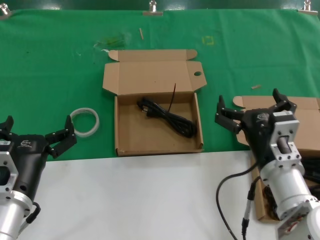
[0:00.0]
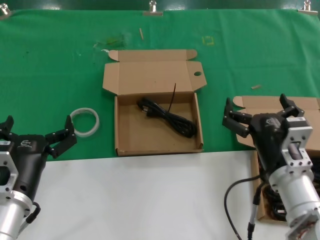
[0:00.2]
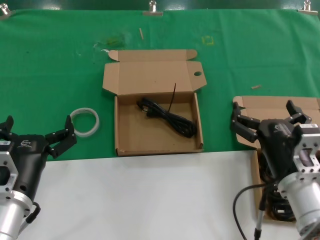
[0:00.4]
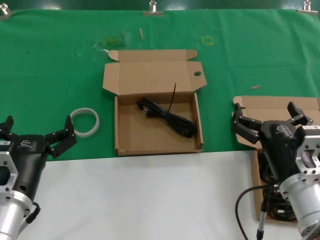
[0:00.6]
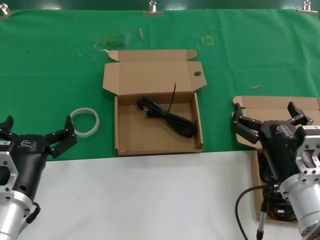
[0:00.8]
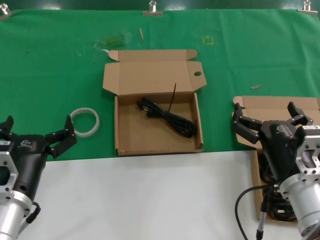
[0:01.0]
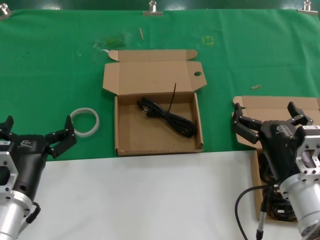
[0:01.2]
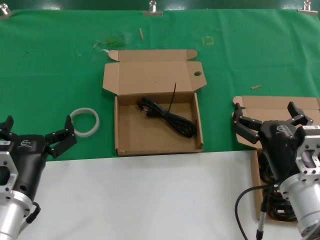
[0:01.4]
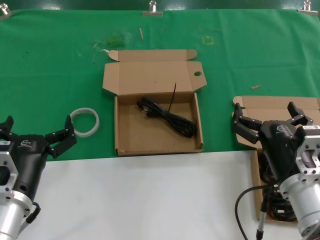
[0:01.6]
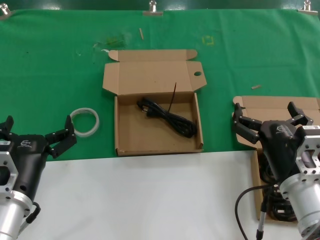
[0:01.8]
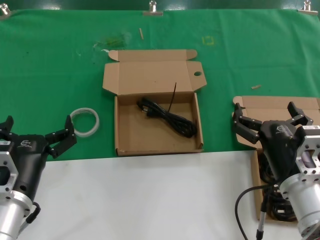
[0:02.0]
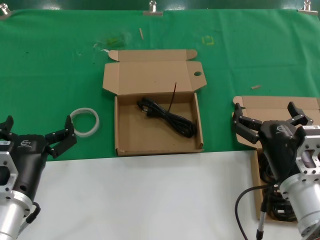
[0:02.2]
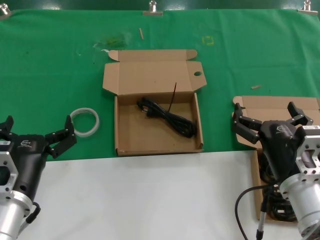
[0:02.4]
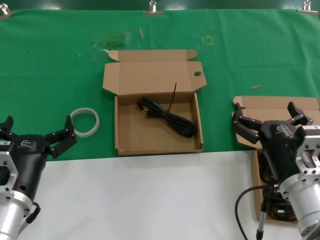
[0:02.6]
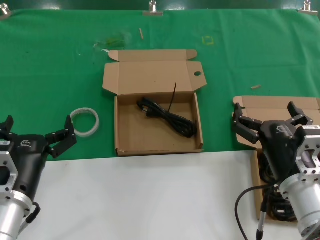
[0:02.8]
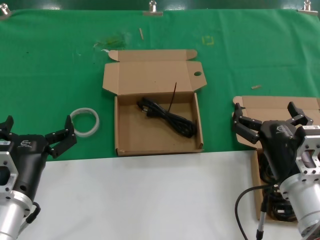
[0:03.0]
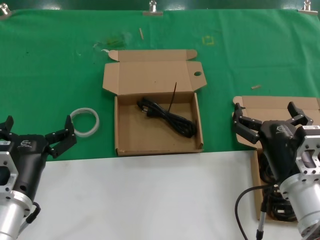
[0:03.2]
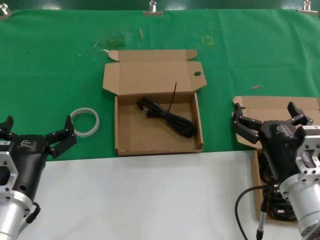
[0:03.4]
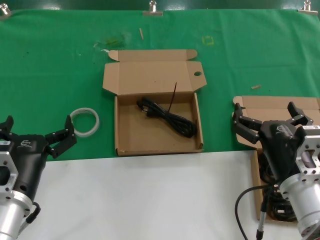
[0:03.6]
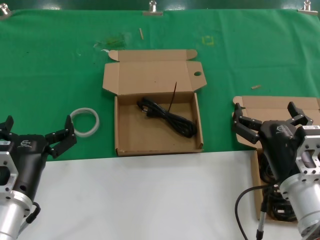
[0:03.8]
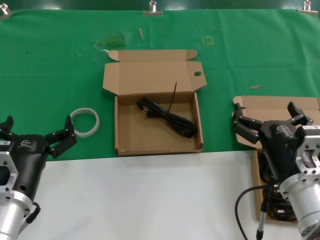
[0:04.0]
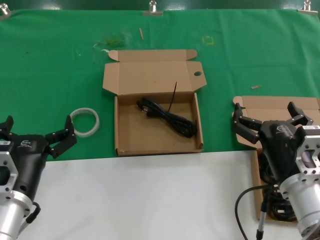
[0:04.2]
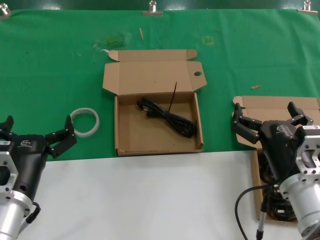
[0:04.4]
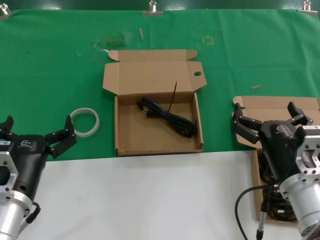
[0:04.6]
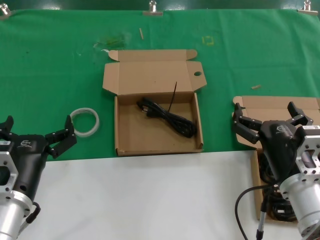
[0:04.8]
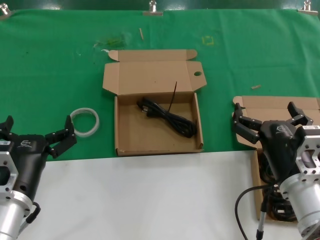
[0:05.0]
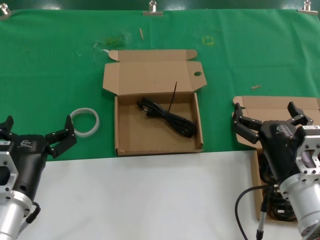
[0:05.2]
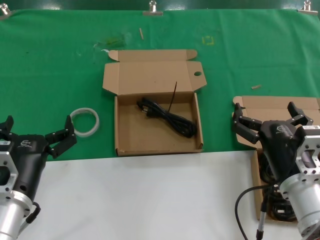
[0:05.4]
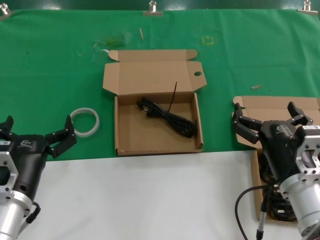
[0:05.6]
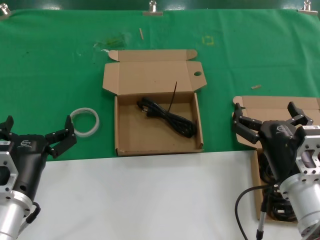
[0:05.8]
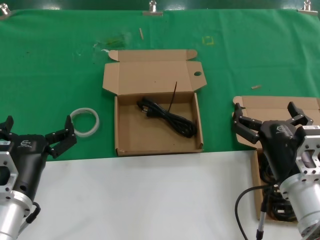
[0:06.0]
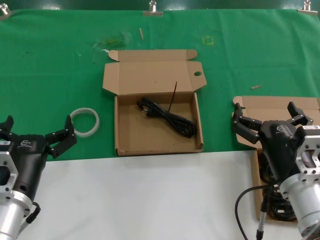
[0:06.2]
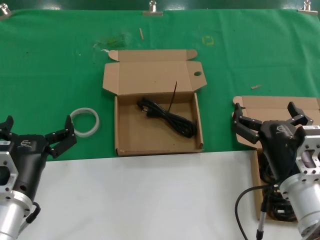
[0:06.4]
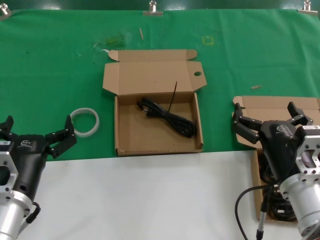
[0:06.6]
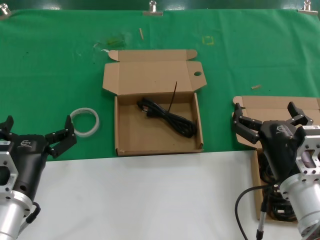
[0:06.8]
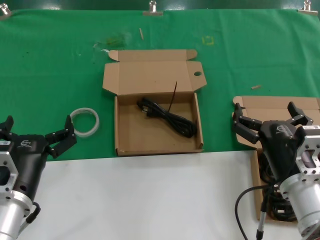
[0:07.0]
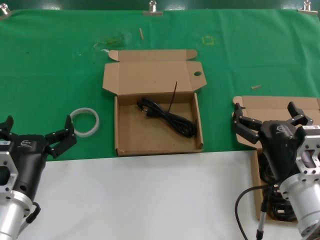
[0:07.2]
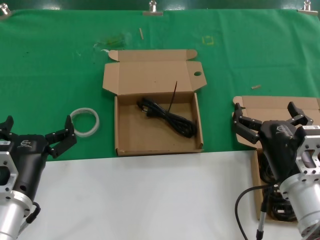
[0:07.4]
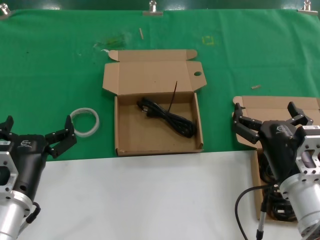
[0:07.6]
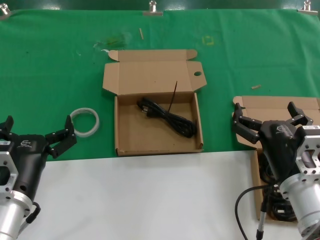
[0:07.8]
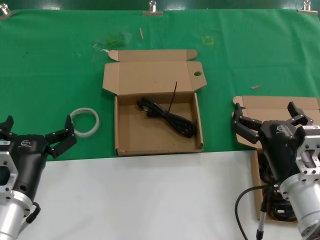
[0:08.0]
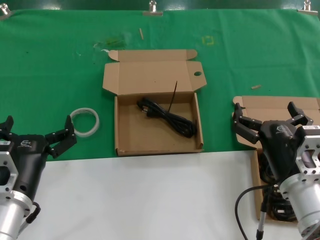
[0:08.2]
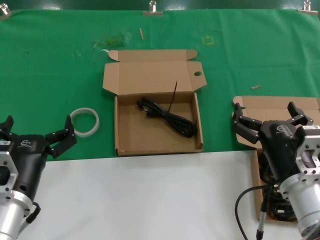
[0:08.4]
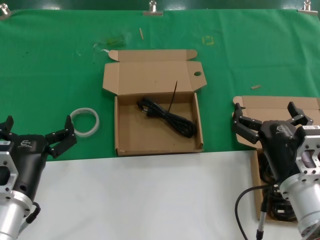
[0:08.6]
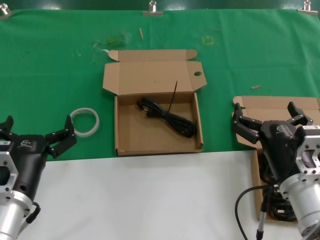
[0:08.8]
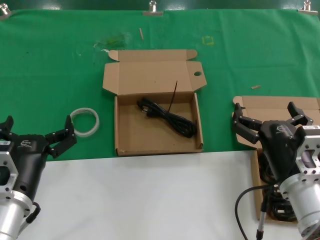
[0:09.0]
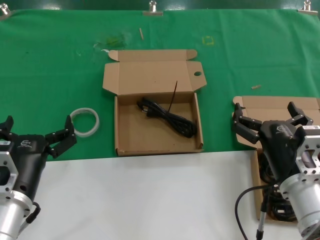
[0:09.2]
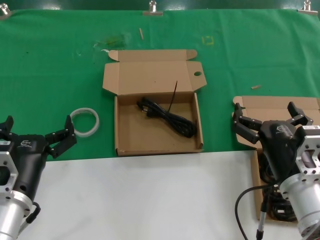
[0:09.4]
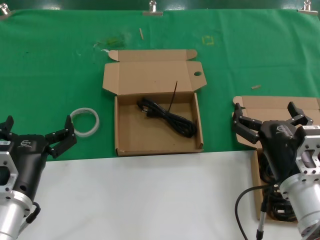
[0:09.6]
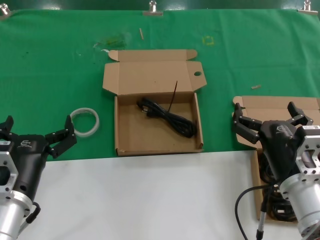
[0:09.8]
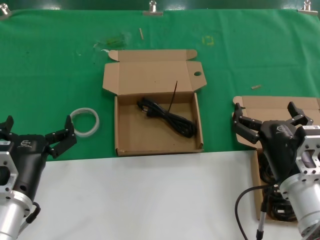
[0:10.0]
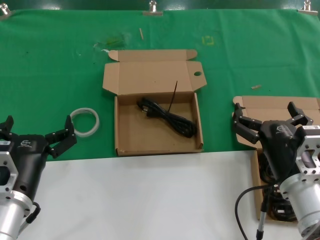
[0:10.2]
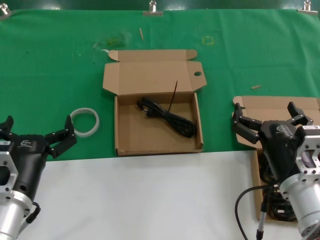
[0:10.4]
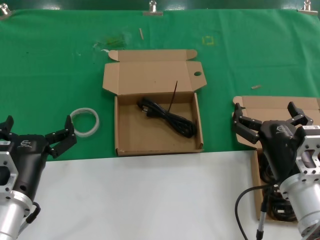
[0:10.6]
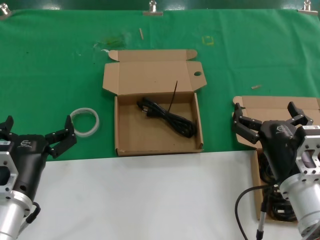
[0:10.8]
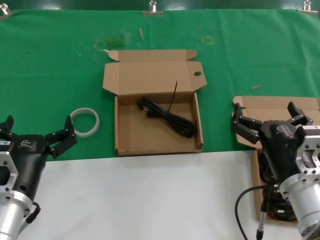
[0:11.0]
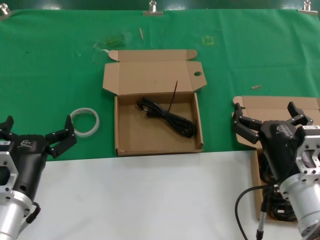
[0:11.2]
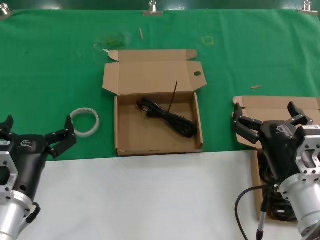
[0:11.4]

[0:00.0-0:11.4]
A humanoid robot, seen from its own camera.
Task of the whole recording: take the parts from the box containing them and put them into an empty box.
0:00.0 to 0:01.4: There are only small adjustments of the hands.
0:01.4 to 0:11.4: Both hands stay about where they are.

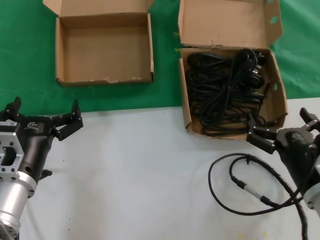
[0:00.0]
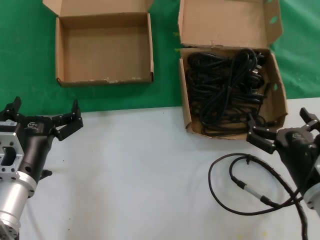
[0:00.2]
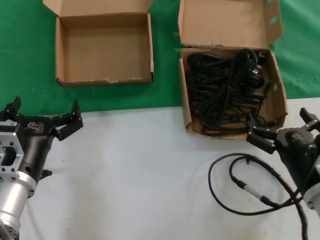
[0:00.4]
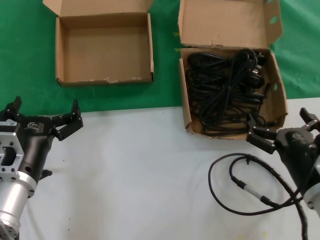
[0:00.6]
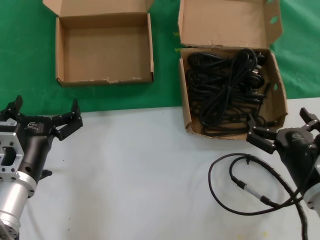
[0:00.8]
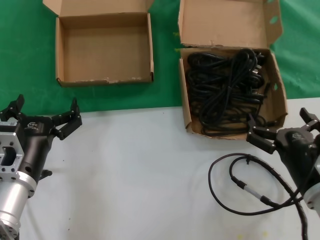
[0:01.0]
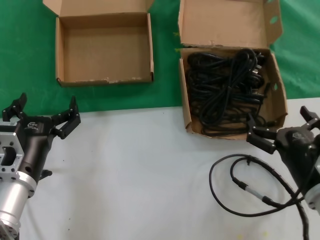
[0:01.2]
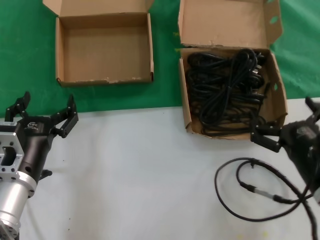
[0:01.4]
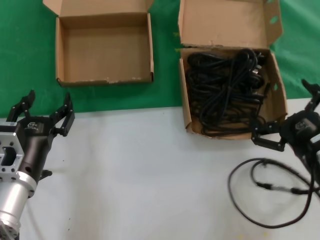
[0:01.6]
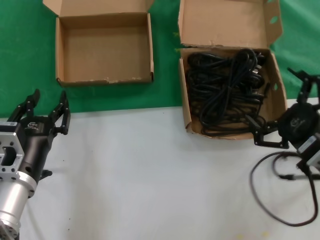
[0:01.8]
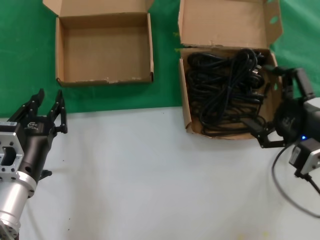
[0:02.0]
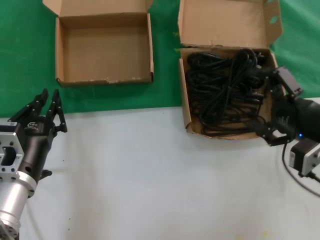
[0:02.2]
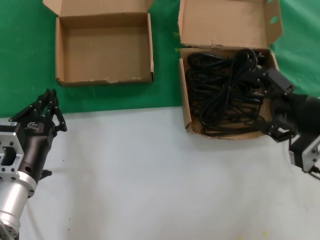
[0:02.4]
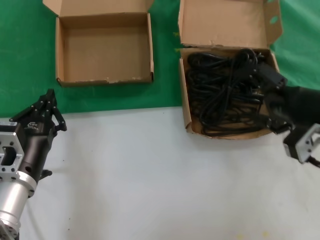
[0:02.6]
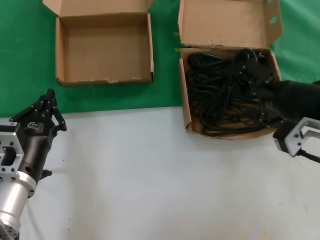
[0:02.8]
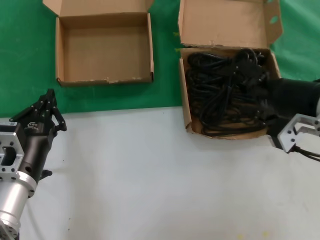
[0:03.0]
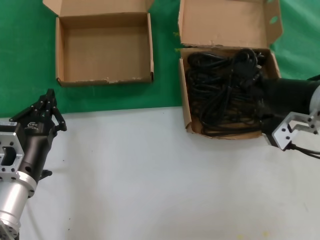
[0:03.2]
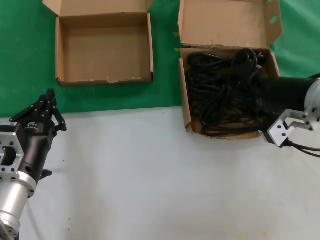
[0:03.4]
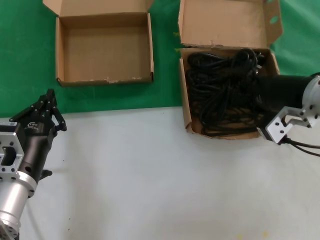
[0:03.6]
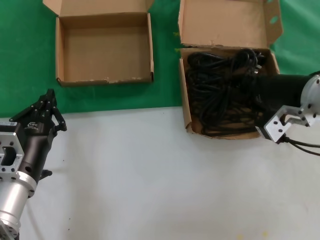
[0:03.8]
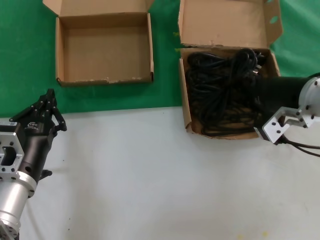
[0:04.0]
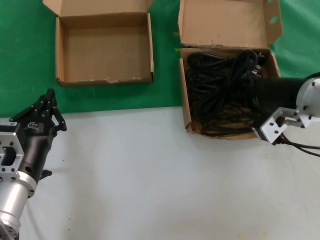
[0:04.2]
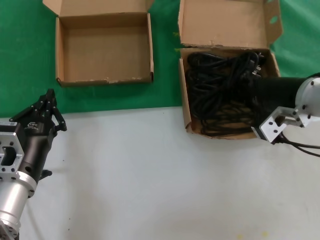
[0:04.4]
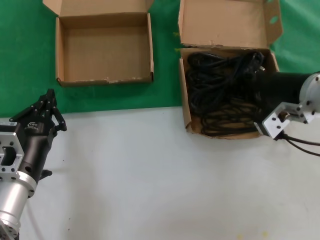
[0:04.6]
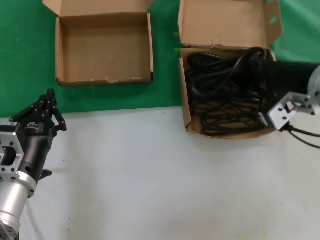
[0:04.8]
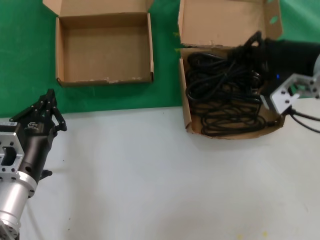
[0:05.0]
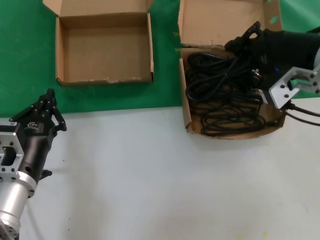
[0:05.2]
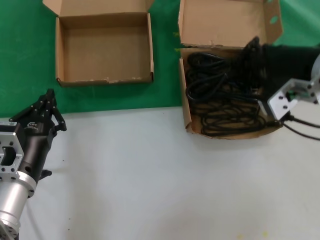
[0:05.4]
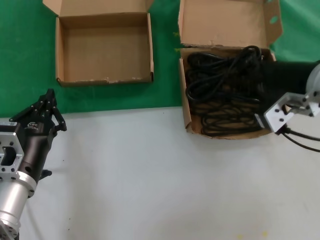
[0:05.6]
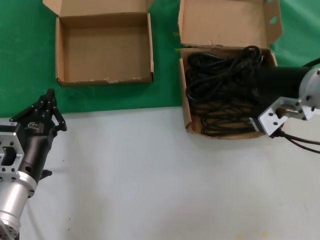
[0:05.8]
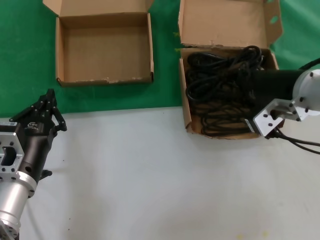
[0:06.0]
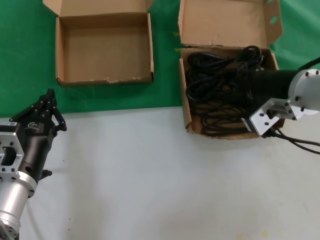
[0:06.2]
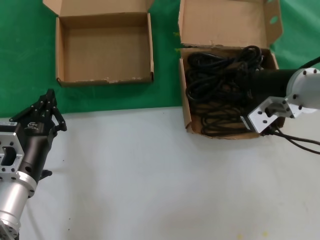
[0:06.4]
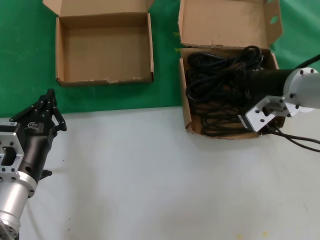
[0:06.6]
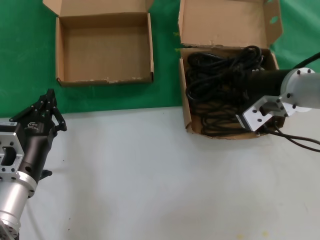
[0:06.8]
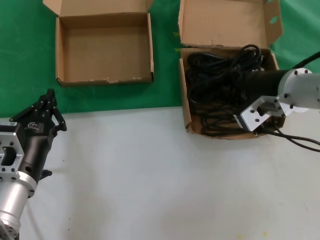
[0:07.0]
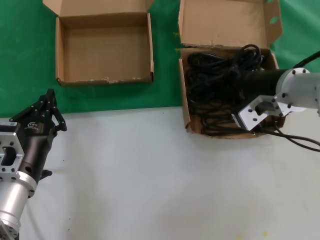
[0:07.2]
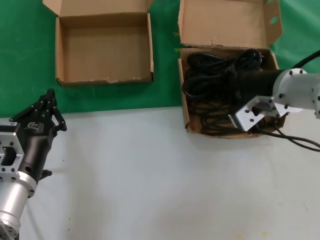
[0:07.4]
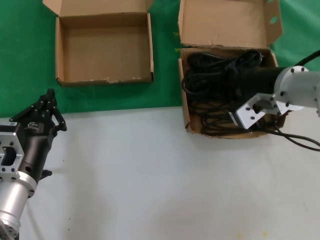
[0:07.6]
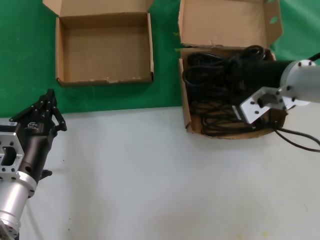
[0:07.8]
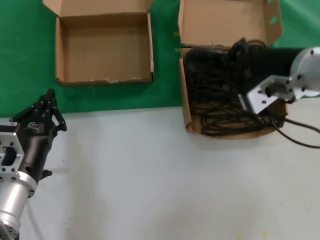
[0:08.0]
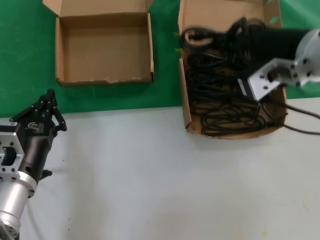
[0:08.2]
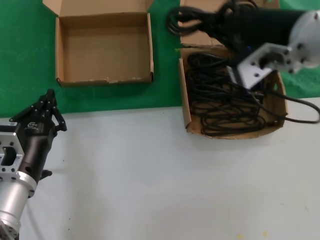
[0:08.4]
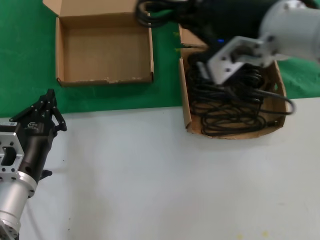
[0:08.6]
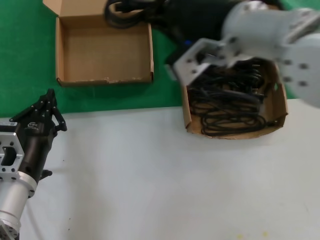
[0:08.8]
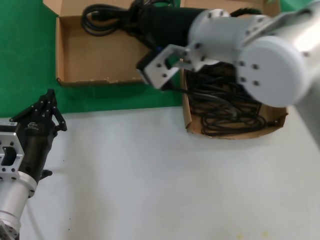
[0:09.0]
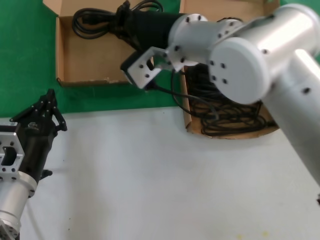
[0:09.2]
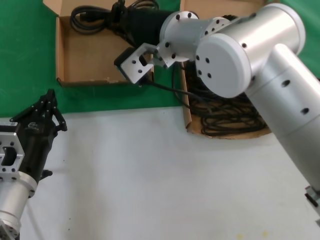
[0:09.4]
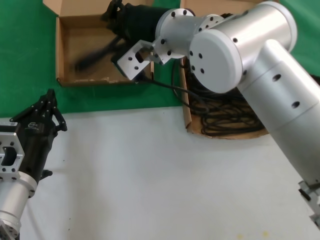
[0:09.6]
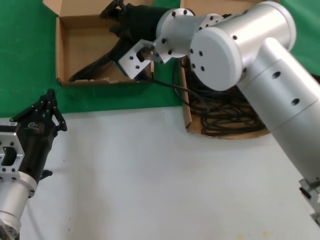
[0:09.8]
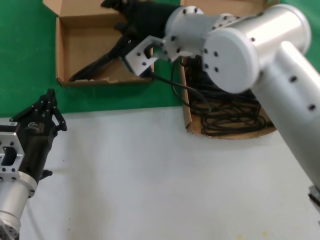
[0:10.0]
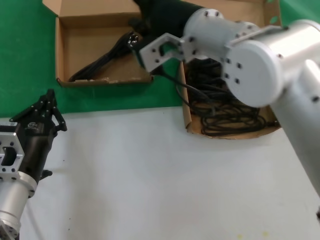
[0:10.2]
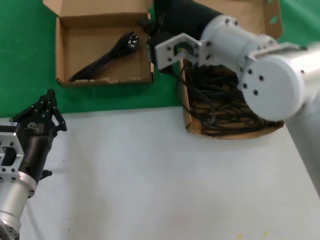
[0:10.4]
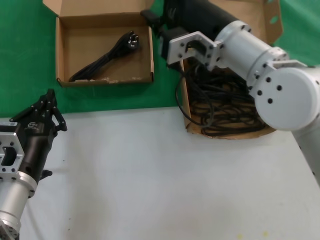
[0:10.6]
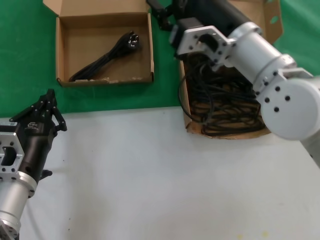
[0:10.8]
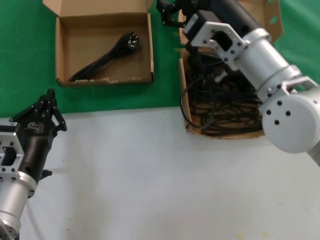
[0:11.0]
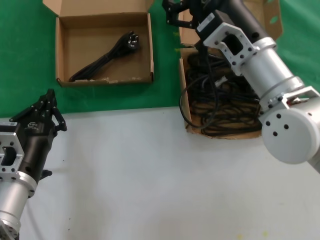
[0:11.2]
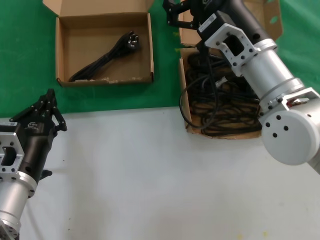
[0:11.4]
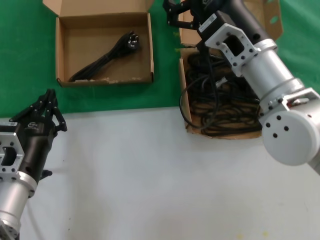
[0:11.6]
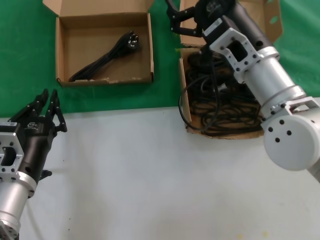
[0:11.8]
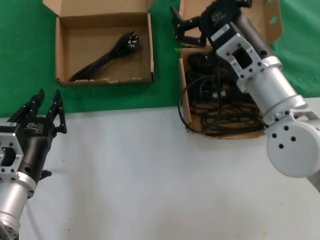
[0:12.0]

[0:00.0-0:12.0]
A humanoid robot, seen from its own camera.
Task of the whole recording: take the parts from the box containing them and put them into an empty box.
Step, 0:00.0 to 0:07.2: Grasp the data cable.
Step, 0:07.4 to 0:09.6: Place the data cable in the another box.
0:01.6 to 0:03.0: The right hand shifts some 15 cm upward and forward.
0:03.0 to 0:04.4: The hands move only a little.
0:06.0 to 0:07.6: The hands move only a little.
0:07.6 to 0:09.0: The right hand shifts about 15 cm to the left and upward.
0:09.0 to 0:10.4: The right hand shifts by roughly 5 cm.
0:10.4 to 0:12.0: The right hand moves downward and to the right, approximately 10 cm.
